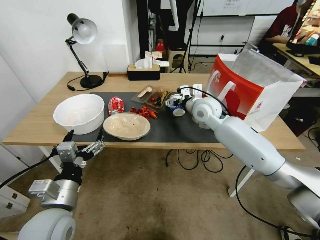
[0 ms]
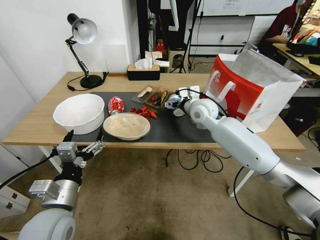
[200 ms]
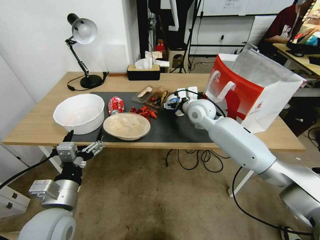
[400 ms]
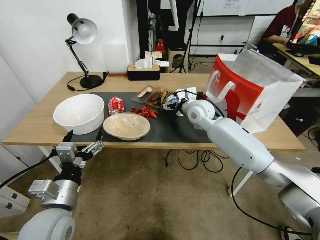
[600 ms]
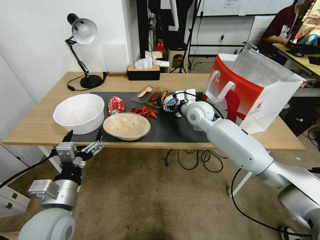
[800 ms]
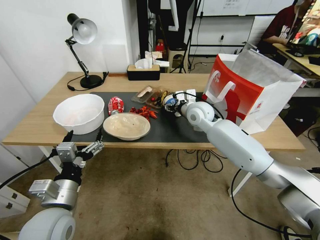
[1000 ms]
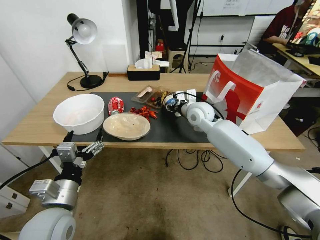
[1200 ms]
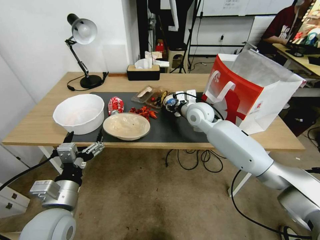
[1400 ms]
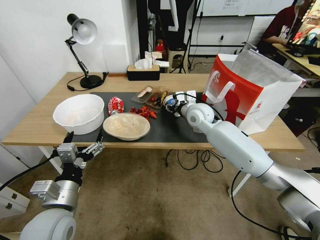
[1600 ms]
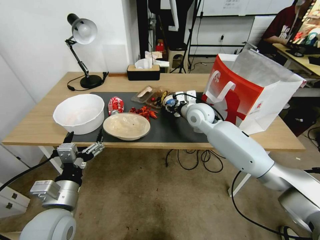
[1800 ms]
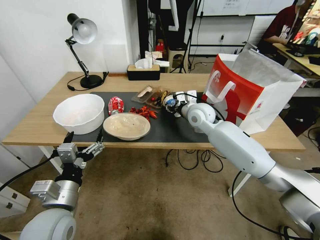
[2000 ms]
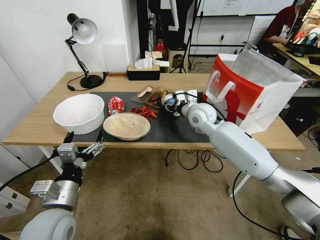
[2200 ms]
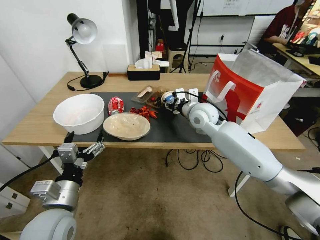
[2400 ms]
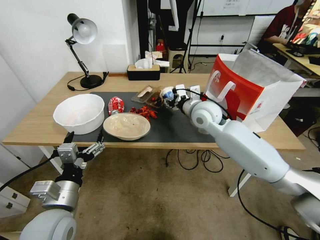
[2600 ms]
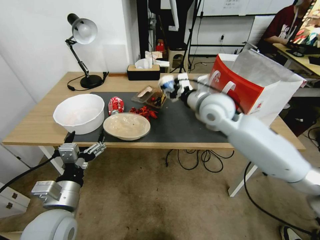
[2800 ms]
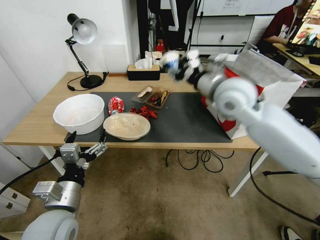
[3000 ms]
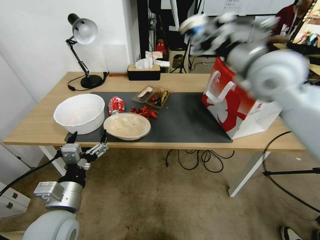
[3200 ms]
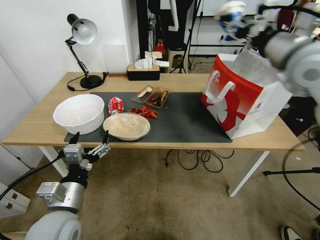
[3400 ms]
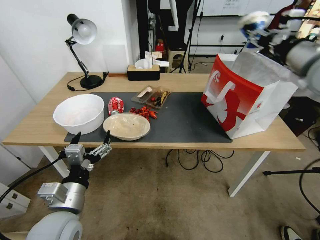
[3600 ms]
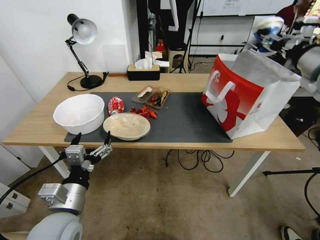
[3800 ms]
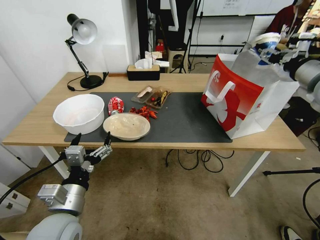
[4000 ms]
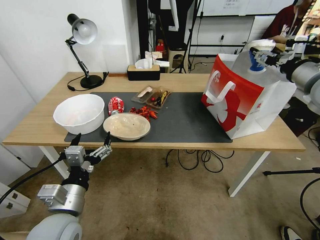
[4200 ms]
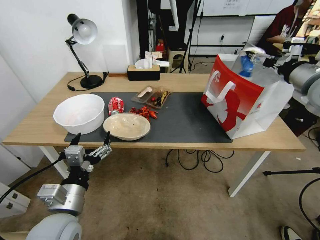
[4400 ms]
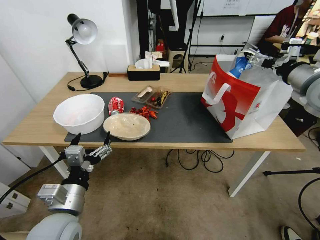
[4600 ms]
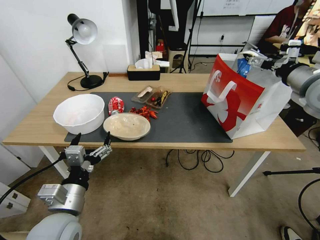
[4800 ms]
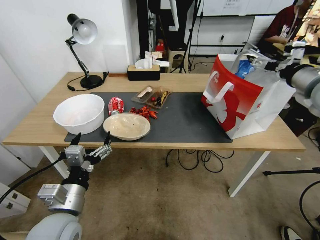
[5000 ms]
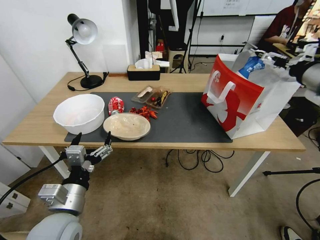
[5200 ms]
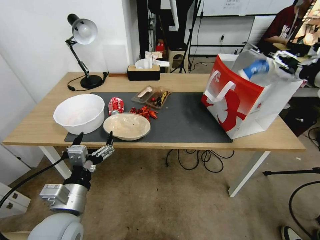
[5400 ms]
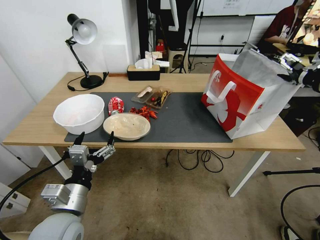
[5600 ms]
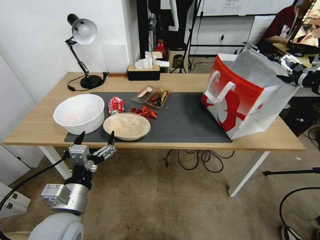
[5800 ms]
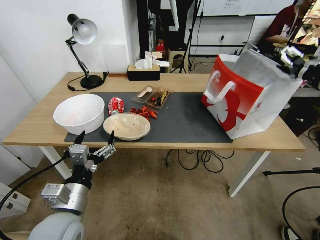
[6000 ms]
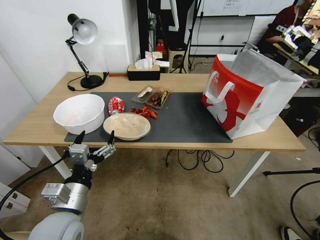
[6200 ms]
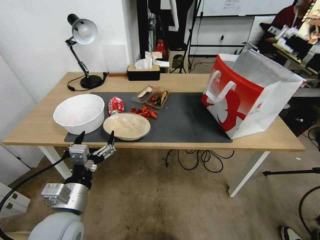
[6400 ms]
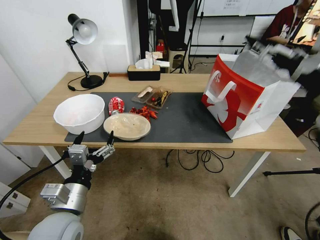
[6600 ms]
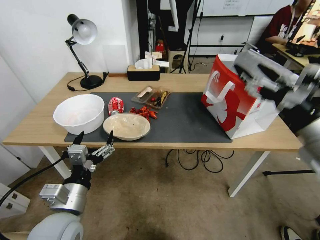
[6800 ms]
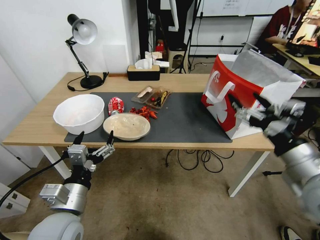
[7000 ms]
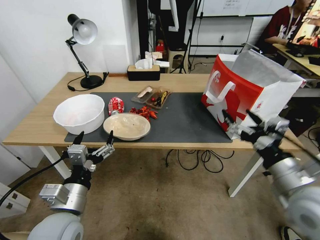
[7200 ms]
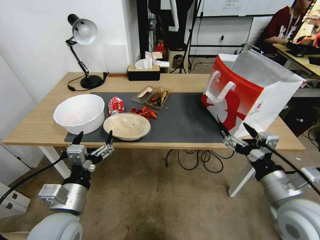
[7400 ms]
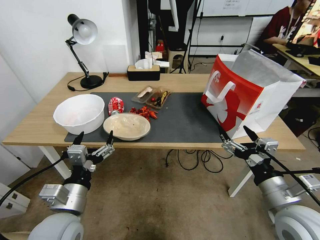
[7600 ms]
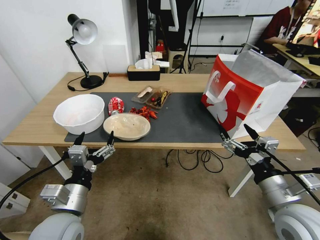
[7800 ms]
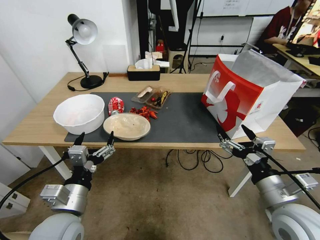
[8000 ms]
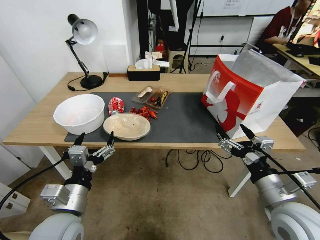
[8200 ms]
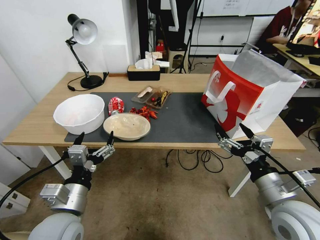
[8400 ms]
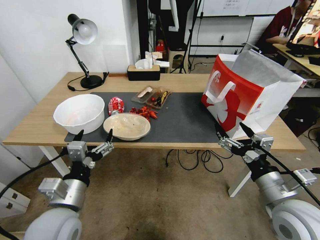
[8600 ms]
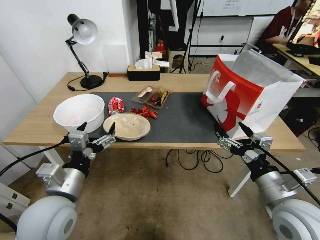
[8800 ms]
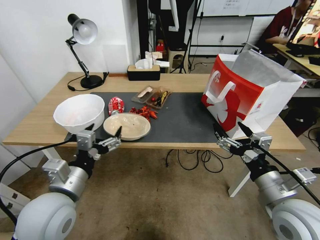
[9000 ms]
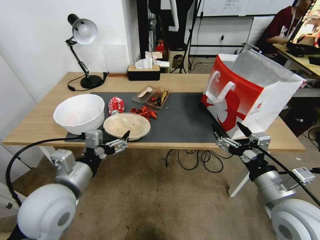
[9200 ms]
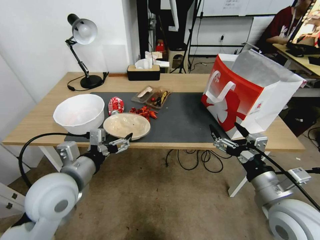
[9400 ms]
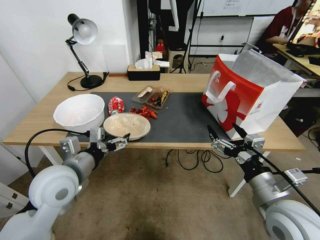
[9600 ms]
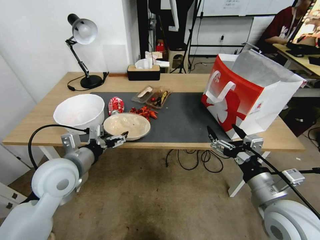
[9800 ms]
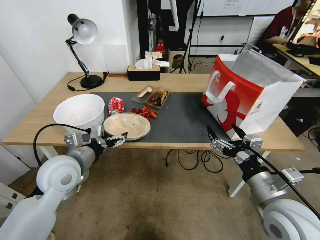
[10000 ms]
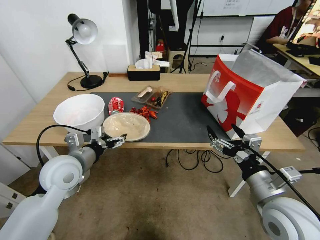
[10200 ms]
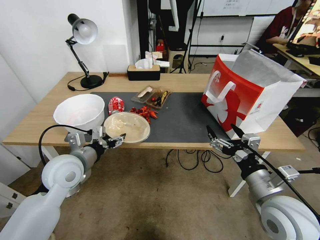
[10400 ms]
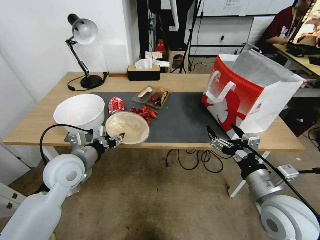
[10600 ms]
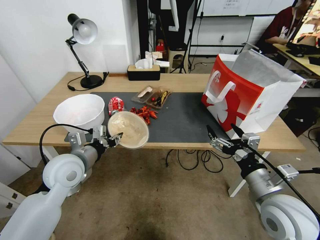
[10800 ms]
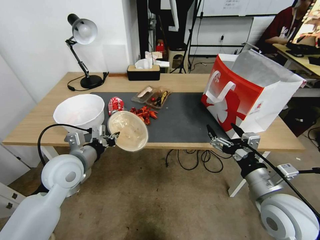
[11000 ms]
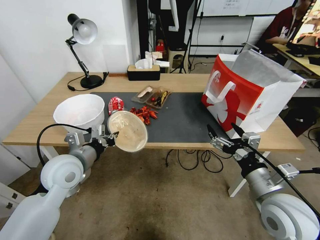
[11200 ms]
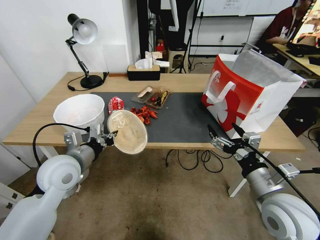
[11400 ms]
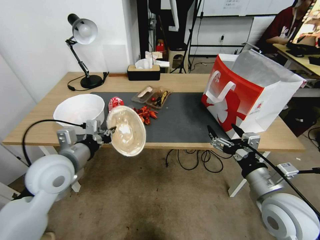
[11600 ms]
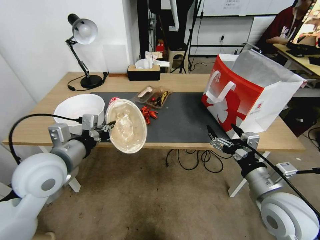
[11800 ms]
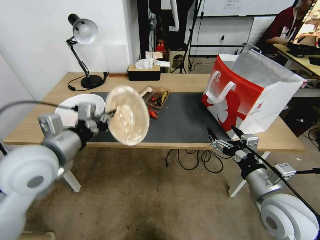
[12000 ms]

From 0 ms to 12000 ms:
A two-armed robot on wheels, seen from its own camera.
From 0 ms to 1600 ms: The right gripper closes its fingers.
From 1600 ms to 3000 ms: The right gripper travels upward and backward by approximately 20 cm.
From 3000 ms to 4400 ms: The right gripper goes roughly 20 cm to the right, and opens up.
From 4400 ms to 6000 ms: The right gripper is displaced to the right by about 5 cm.
From 6000 ms to 7600 ms: The right gripper is displaced downward, backward and to the left by approximately 35 cm.
From 7600 ms to 9000 ms: The left gripper moves about 5 cm.
From 9000 ms to 10400 ms: The left gripper shifts approximately 10 cm forward.
From 10400 ms to 12000 ms: The left gripper moves upward, roughly 10 cm, and closes.

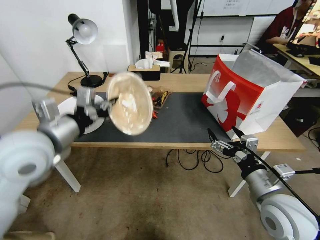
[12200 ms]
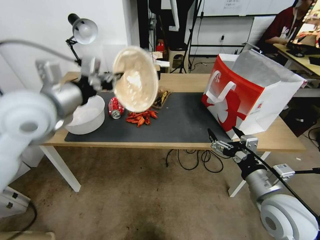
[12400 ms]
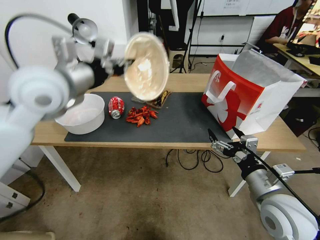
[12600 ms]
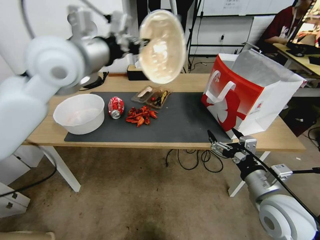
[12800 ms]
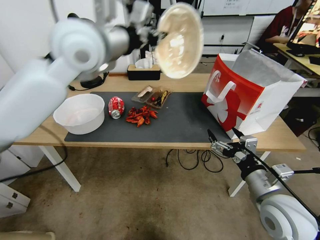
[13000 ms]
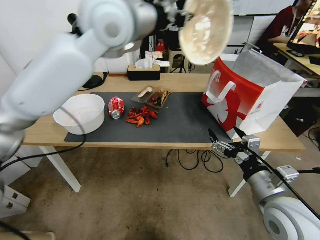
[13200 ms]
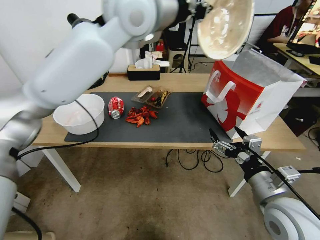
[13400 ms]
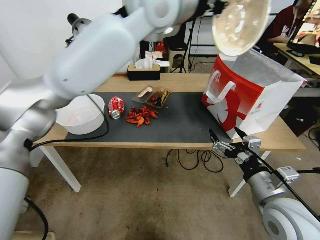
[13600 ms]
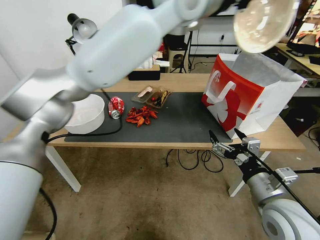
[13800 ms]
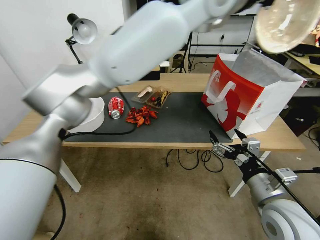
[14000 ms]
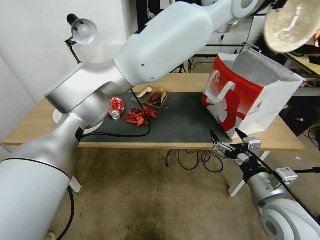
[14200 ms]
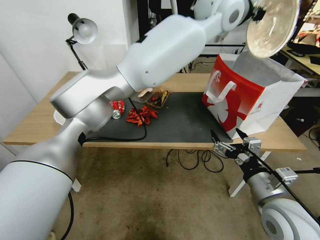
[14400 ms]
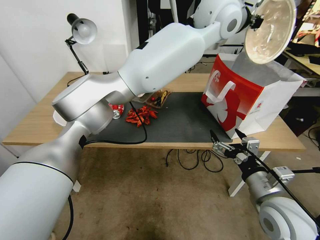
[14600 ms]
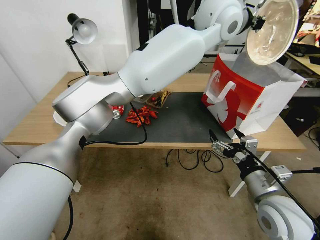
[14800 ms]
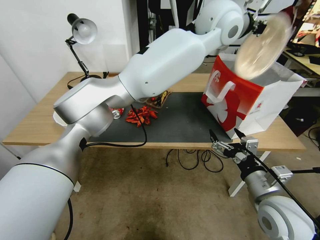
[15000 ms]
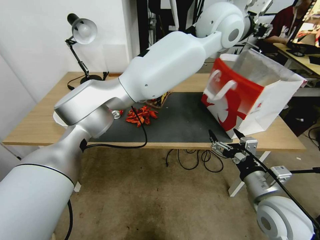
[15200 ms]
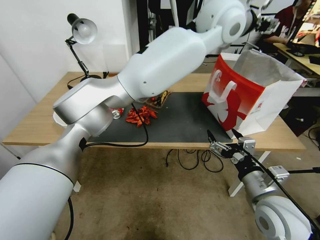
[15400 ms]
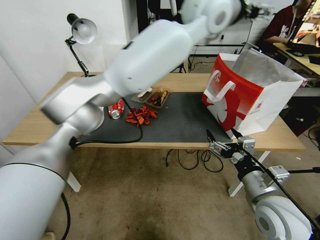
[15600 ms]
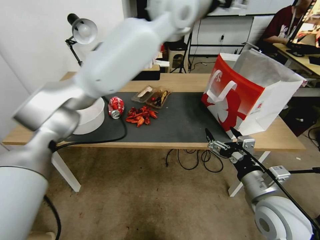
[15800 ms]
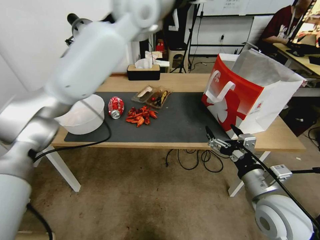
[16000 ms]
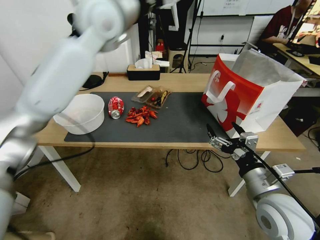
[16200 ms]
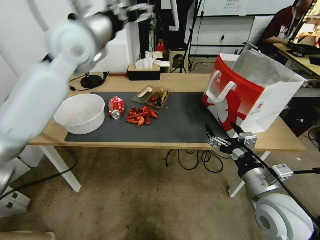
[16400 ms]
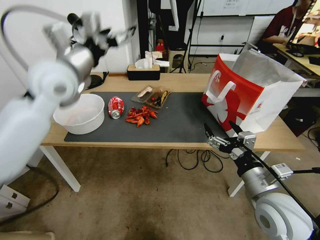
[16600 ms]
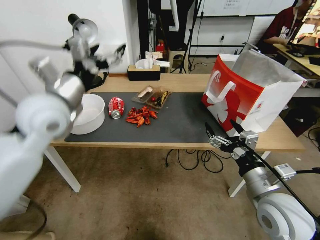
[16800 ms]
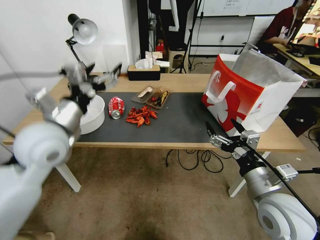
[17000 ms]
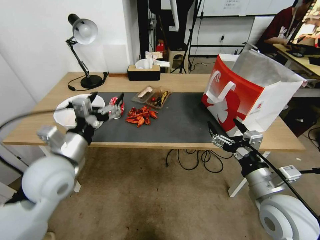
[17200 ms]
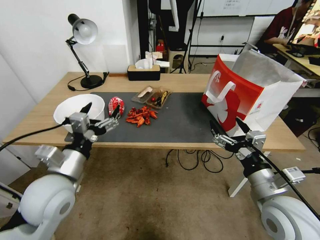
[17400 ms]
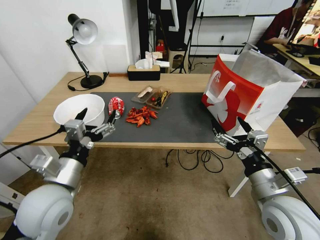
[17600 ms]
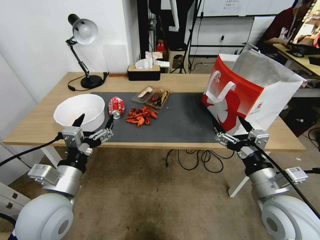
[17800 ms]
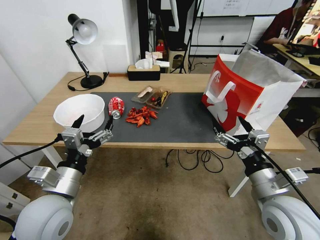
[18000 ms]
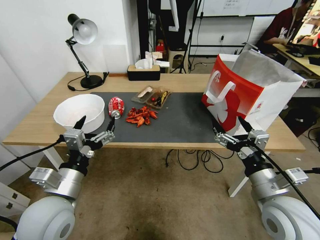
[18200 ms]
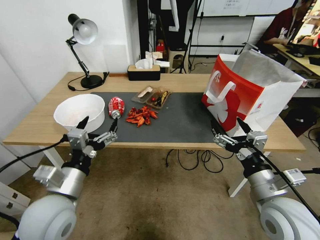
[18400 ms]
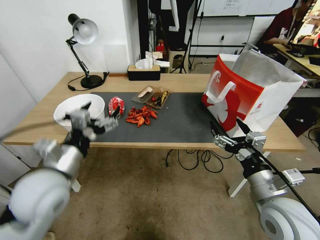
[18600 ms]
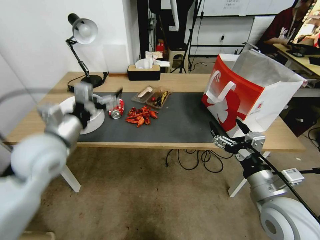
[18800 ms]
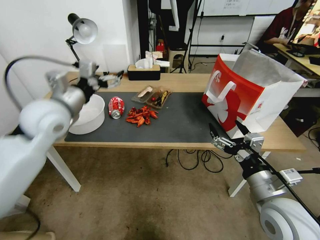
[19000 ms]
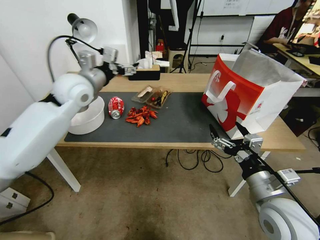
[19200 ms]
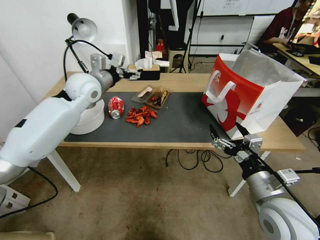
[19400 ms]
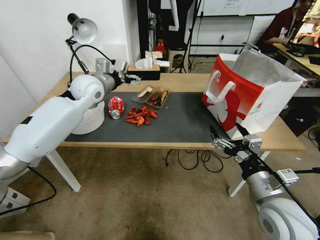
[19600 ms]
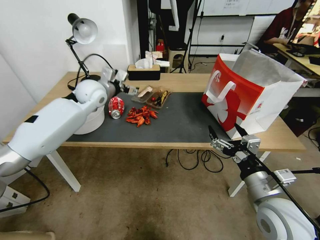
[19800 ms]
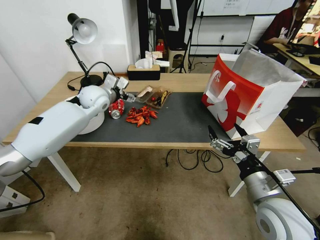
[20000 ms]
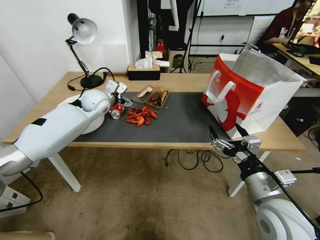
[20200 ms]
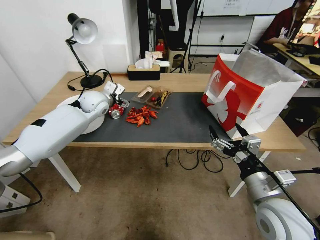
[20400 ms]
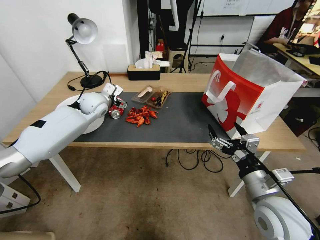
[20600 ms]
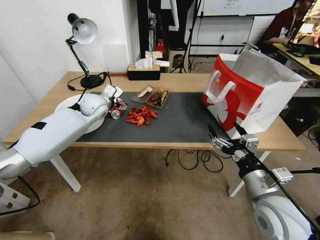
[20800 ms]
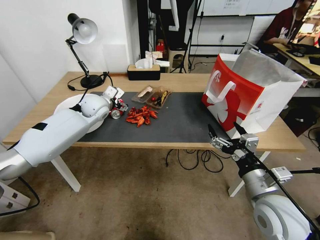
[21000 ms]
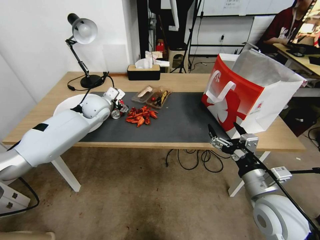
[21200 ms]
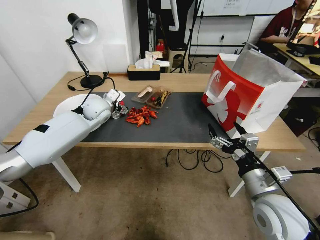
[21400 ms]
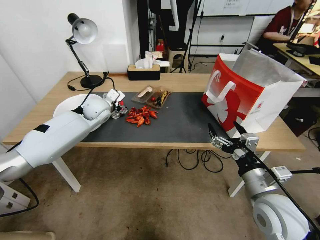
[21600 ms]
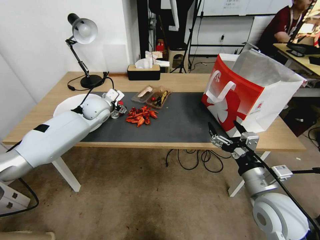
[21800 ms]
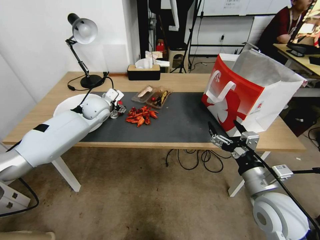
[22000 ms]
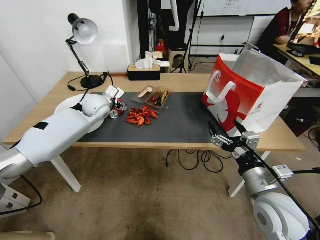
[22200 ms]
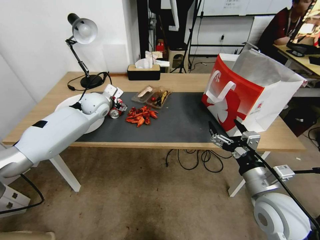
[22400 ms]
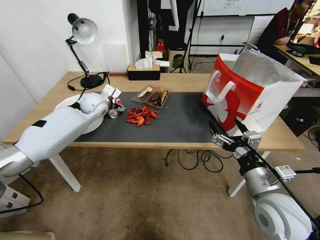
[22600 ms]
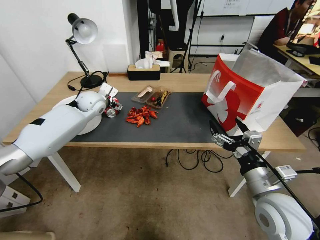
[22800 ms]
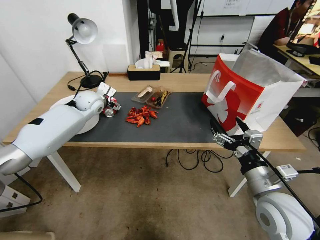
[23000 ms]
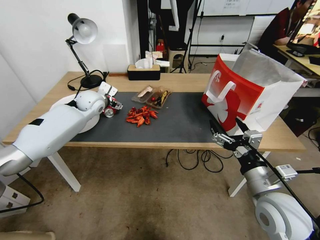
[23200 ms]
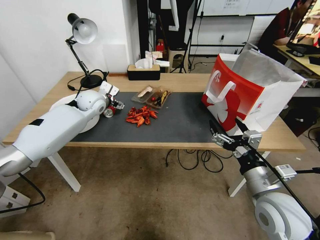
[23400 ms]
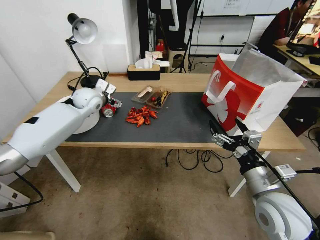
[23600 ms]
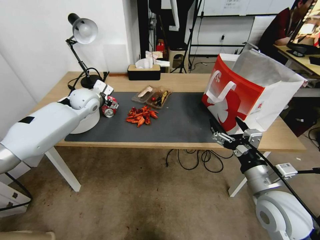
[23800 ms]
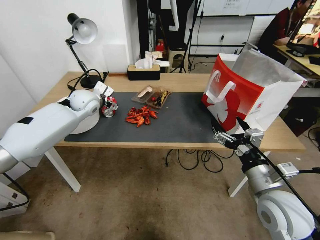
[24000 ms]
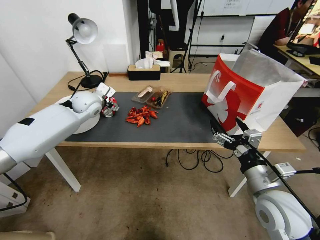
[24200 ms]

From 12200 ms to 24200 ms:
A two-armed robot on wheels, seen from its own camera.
From 12200 ms to 13800 ms: The left gripper goes roughly 40 cm to the right, upward and forward.
From 13800 ms to 15200 ms: The left gripper travels to the right and downward by approximately 10 cm, and opens its fingers.
From 15200 ms to 16600 ms: The left gripper moves to the left, approximately 35 cm, and opens its fingers.
From 16600 ms to 18200 ms: The left gripper travels backward and downward by about 30 cm.
From 18200 ms to 19800 ms: The left gripper is displaced forward by some 35 cm.
From 19800 ms to 21200 ms: The left gripper goes about 5 cm downward.
From 21200 ms to 24200 ms: The grippers make only small movements.
